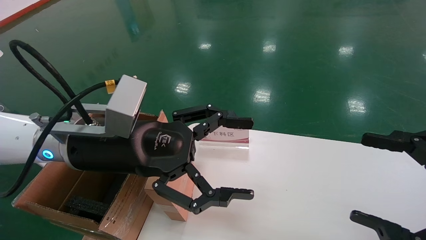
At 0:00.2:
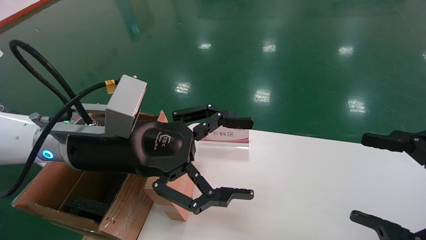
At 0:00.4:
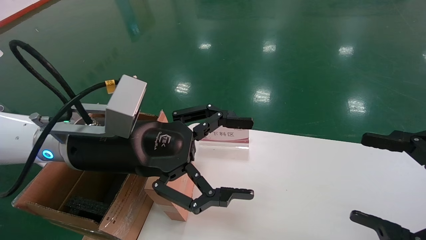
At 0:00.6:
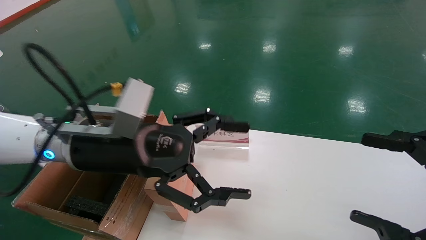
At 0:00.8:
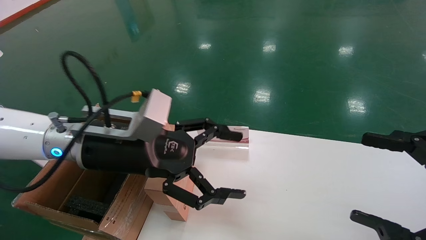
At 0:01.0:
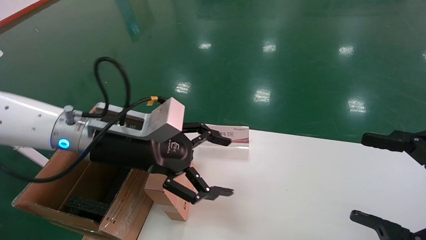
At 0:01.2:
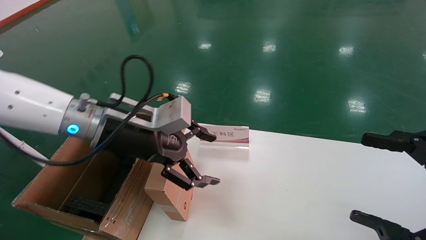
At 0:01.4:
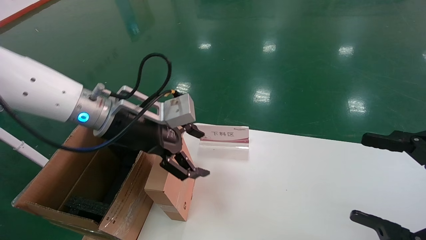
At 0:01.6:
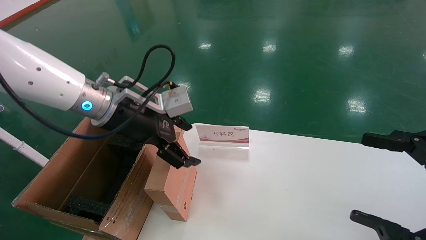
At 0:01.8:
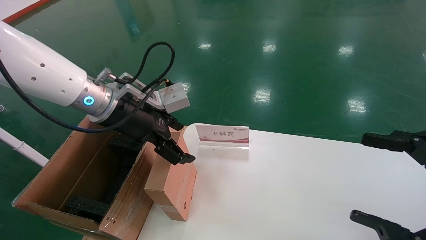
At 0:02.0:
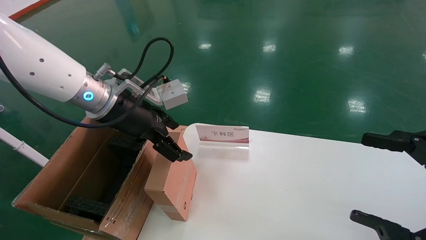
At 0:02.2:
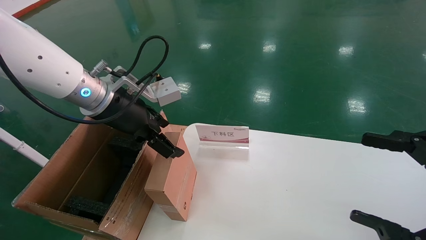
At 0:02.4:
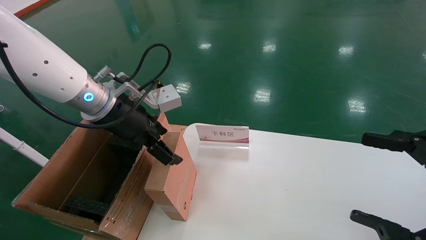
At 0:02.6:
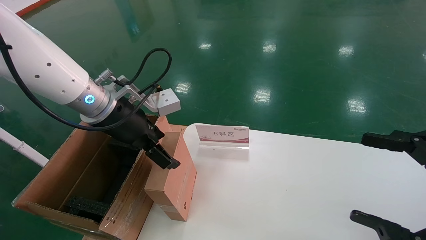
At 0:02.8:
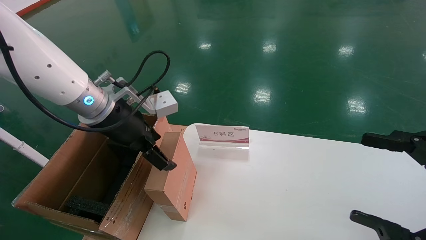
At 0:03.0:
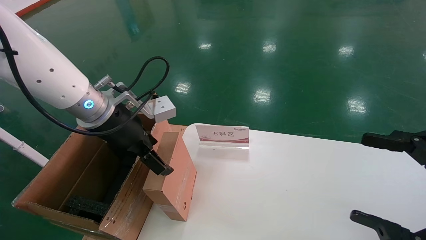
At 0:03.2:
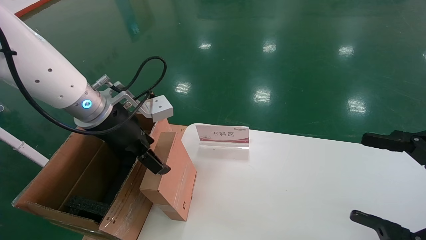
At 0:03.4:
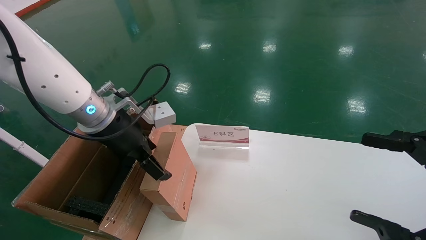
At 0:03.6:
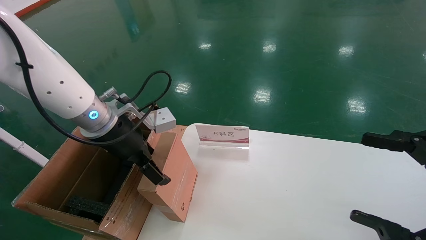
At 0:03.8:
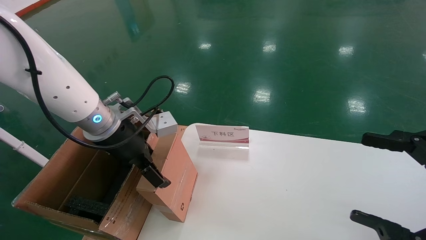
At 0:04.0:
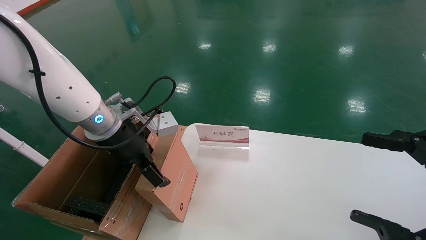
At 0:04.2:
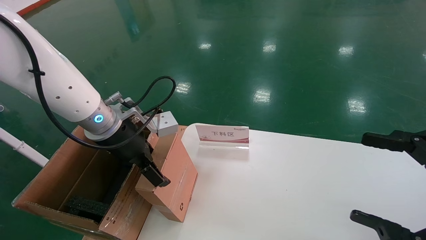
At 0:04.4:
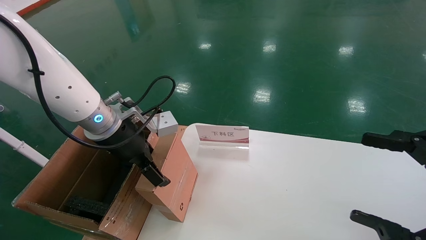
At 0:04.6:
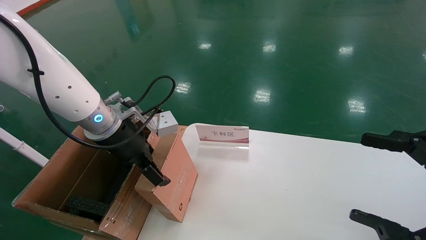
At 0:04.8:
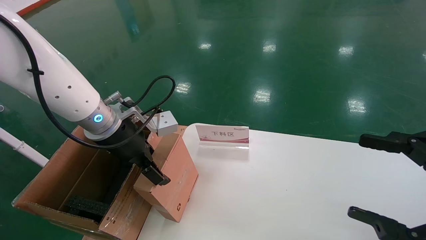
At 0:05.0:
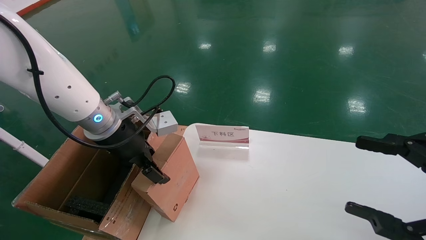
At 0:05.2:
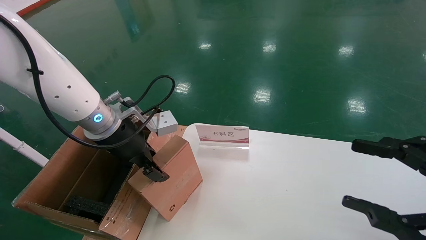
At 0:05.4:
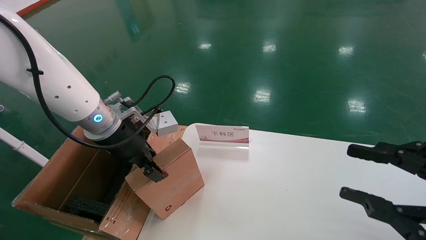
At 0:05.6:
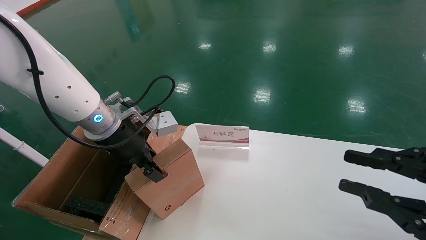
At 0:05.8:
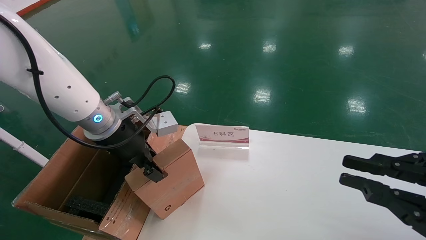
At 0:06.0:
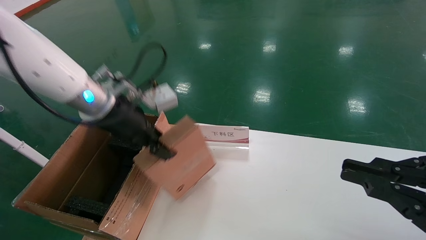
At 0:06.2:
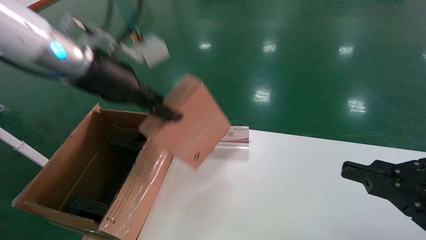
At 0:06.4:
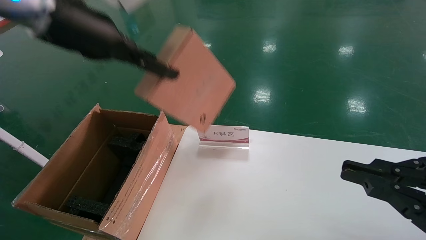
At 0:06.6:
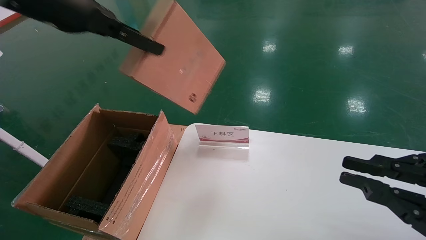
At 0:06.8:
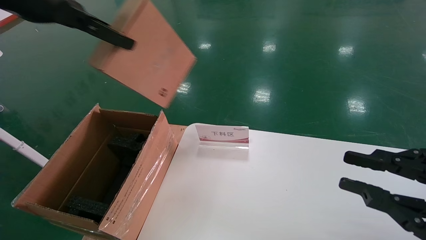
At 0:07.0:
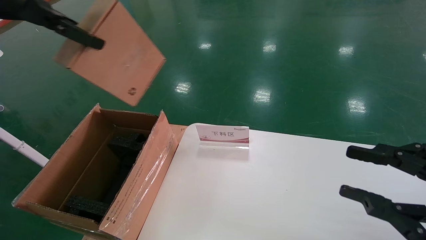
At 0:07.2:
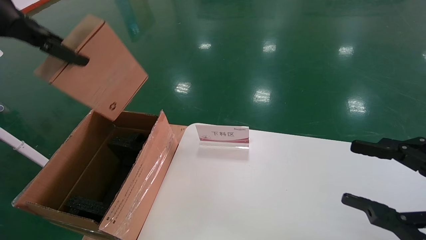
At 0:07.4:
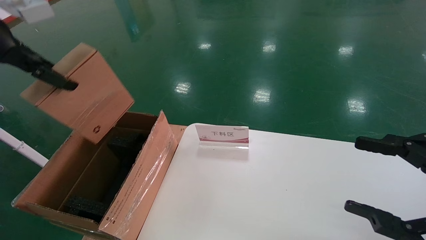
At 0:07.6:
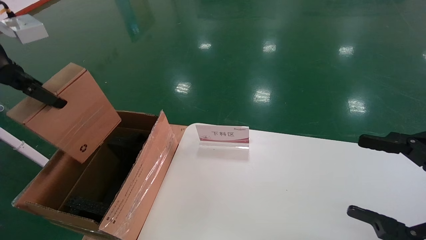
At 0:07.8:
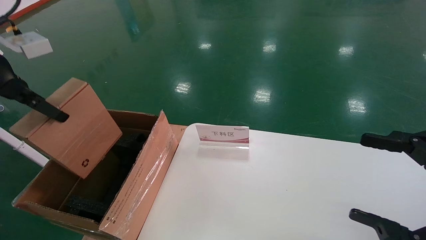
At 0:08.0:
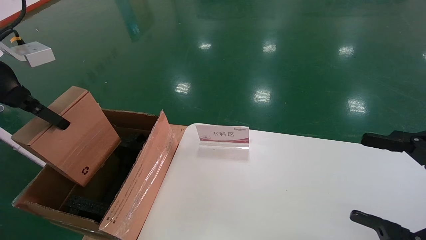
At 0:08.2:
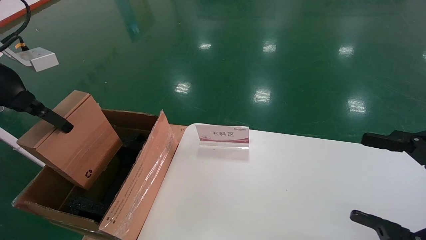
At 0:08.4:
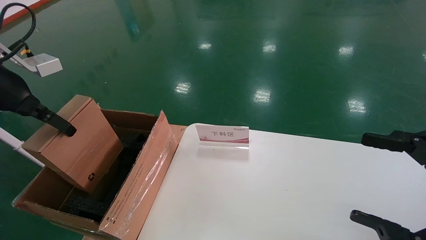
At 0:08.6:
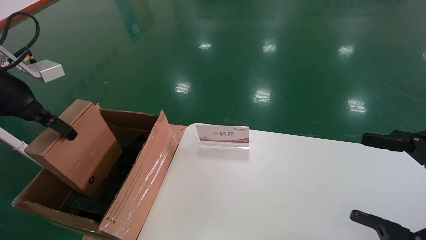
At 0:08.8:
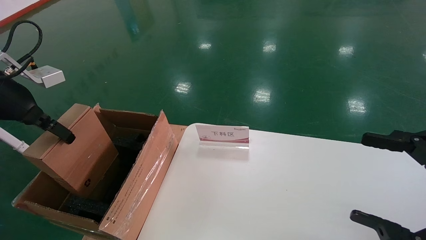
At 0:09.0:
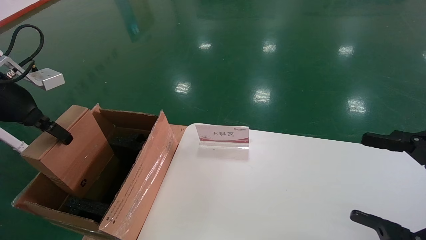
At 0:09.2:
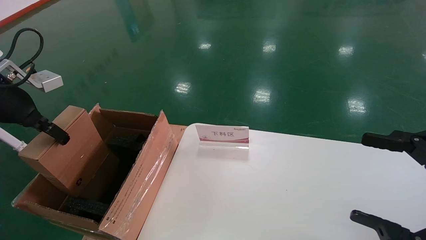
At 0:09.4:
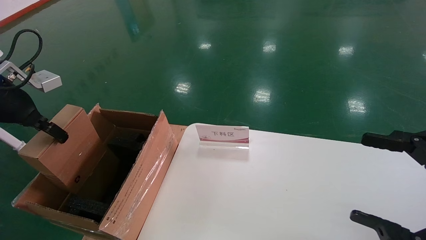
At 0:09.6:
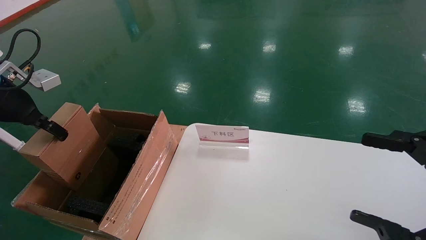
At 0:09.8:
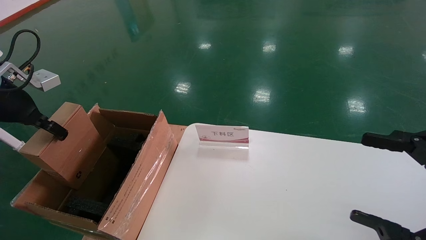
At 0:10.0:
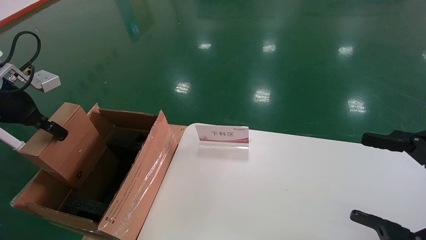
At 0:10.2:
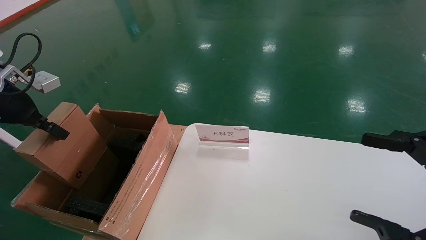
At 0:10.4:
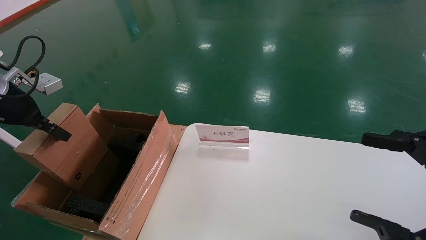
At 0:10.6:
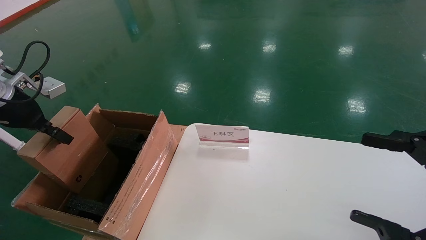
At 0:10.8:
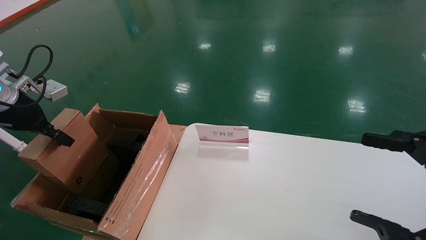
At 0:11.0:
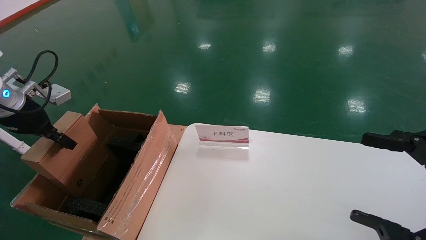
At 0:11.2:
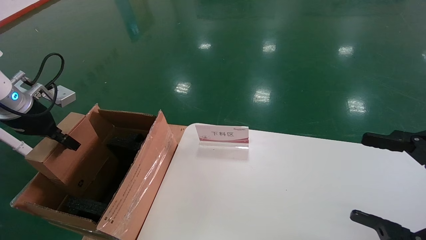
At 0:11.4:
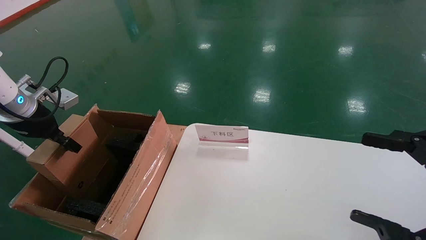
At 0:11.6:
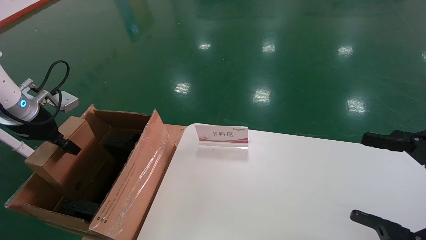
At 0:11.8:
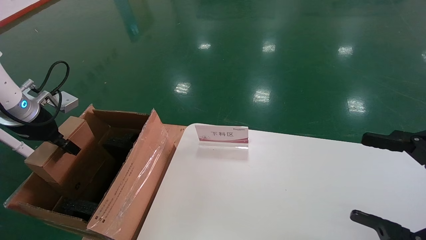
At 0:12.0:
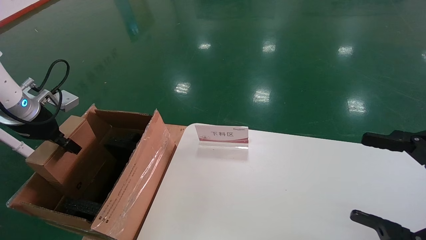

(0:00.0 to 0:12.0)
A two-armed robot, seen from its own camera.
Task of the whole recording: pick up the small cardboard box and load it into the large cardboard box.
Step, 0:00.8 - 0:05.6: Pick up the mouse and power cord box.
0:00.0 - 0:01.6: The left gripper heads forward, covering some 10 cm.
0:03.0 - 0:04.4: The grippers move only a little.
0:04.4 - 0:06.0: The right gripper closes its fingers. Meanwhile the left gripper heads upward, covering some 5 cm, and closes up.
0:06.0 - 0:07.6: The left gripper moves to the left, upward and backward, approximately 20 cm. Meanwhile the right gripper opens.
0:07.6 - 0:09.0: The left gripper goes about 10 cm downward.
0:09.0 - 0:10.4: The grippers make only small movements.
0:10.4 - 0:12.0: The left gripper changes place by roughly 5 cm.

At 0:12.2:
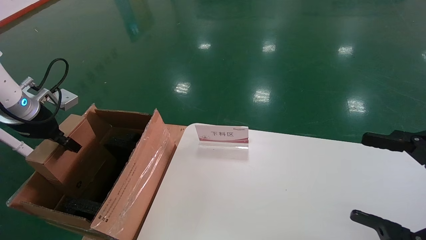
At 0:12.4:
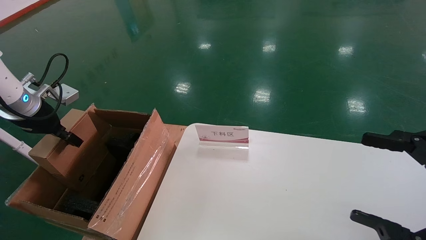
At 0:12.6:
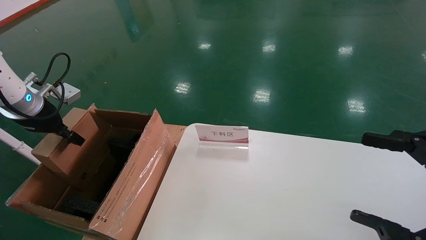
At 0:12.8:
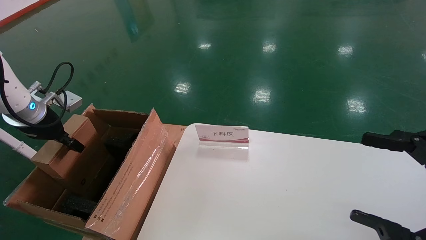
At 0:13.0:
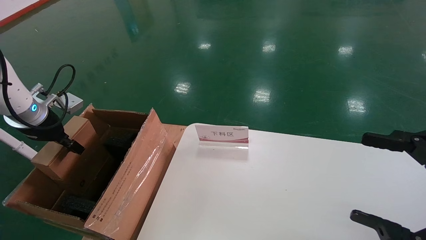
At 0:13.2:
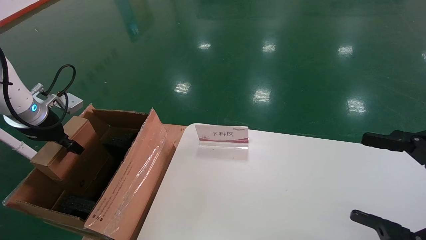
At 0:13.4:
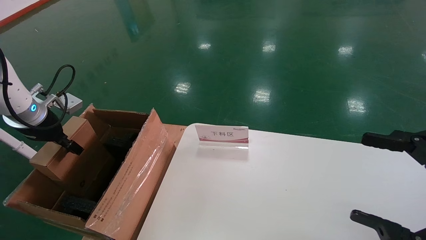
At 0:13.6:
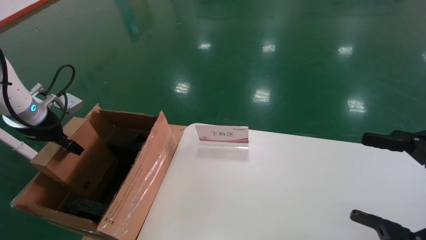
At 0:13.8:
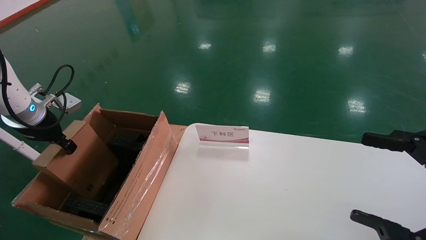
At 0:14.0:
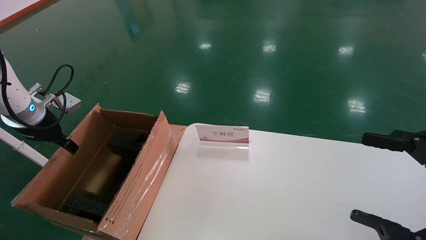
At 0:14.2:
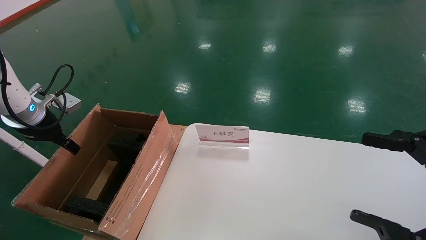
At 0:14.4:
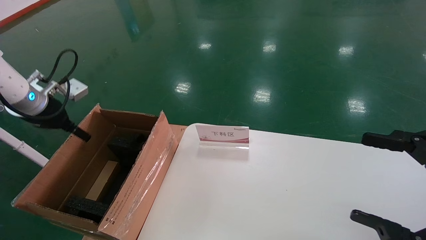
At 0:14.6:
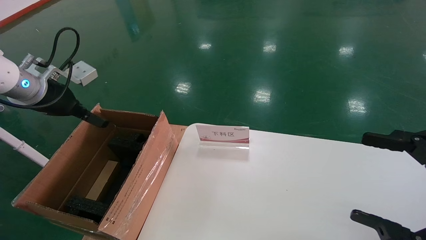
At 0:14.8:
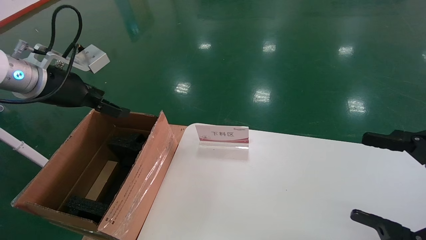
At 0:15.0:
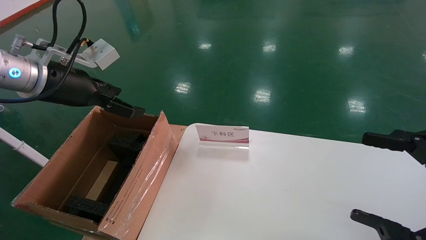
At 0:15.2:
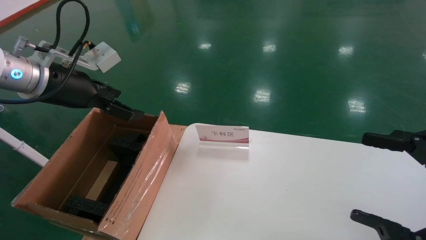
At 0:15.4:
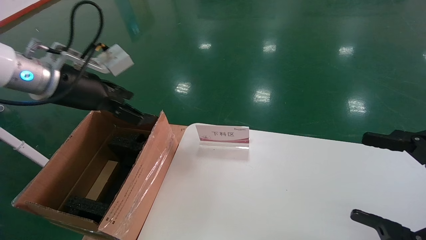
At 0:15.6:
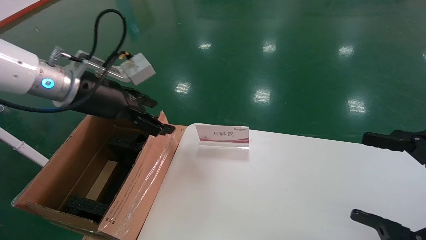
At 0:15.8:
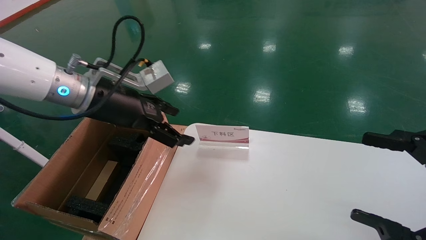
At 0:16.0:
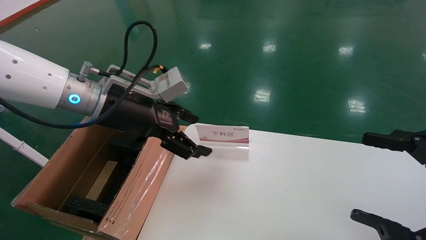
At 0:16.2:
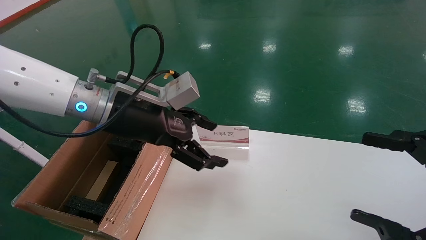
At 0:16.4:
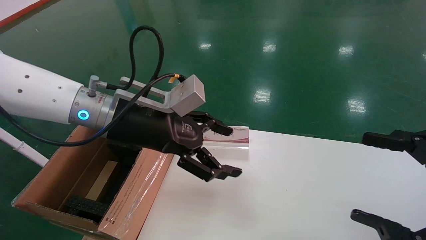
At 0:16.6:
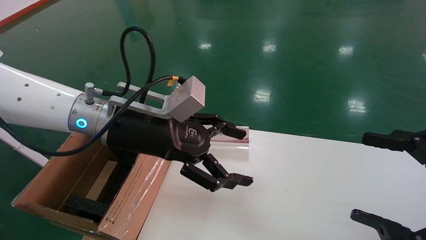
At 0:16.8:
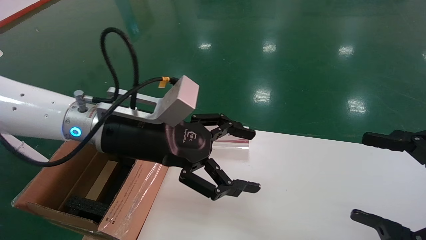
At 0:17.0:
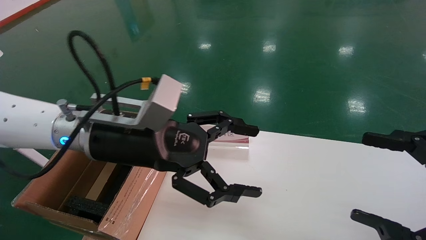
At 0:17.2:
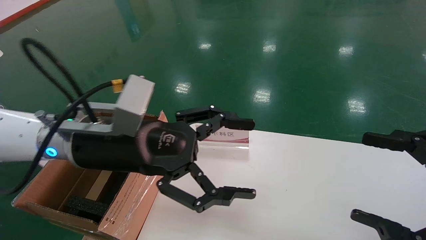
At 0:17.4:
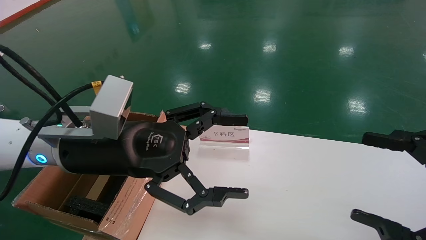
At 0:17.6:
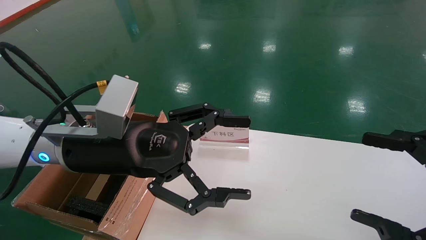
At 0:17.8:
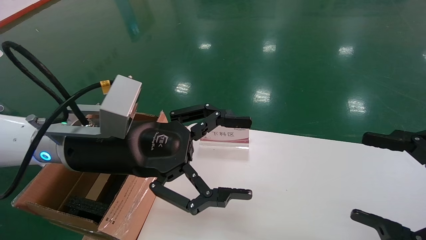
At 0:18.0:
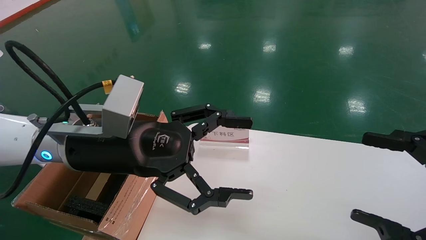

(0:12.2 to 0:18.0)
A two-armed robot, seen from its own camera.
Task of the whole recording: pick up the small cardboard box and load it into the large cardboard box.
Step, 0:12.2 - 0:14.2: Place the mouse and power cord box into the case.
0:12.2 - 0:13.6: The grippers move only a little.
0:13.6 - 0:15.0: The left gripper moves to the right and upward, approximately 15 cm, and opens up.
0:15.0 - 0:16.6: The left gripper shifts roughly 15 cm to the right.
0:16.6 - 0:18.0: The left gripper moves about 5 cm.
